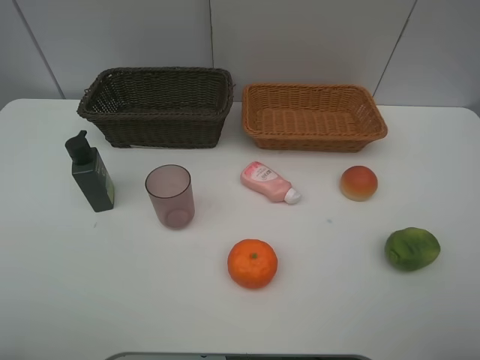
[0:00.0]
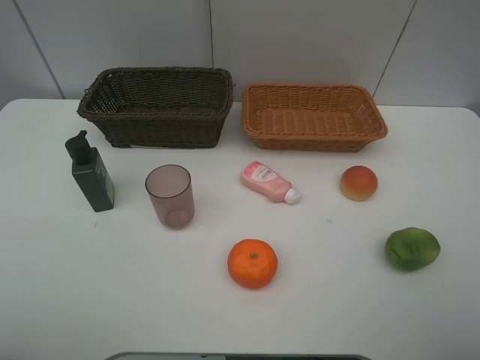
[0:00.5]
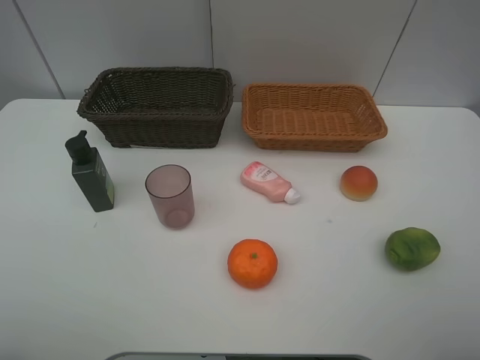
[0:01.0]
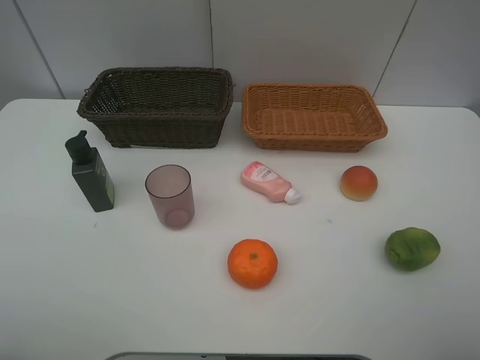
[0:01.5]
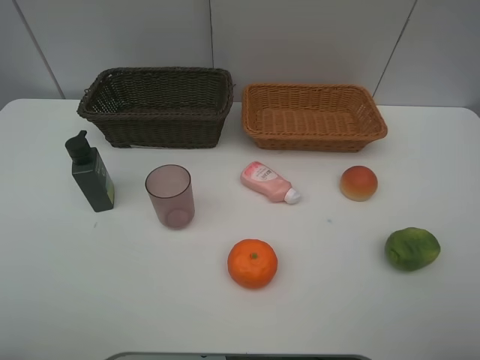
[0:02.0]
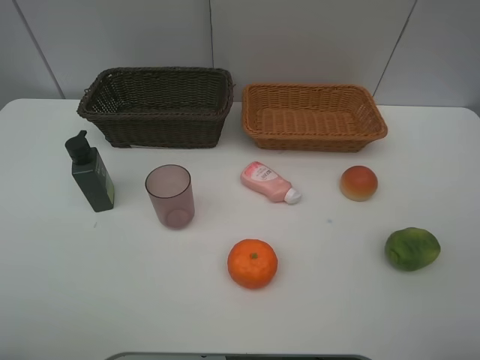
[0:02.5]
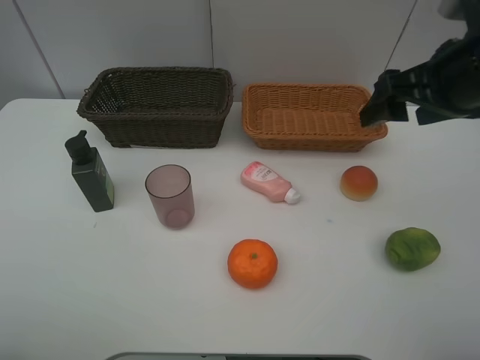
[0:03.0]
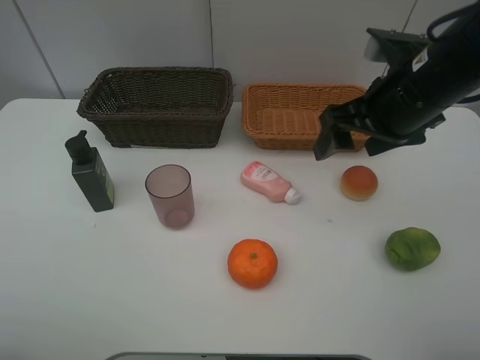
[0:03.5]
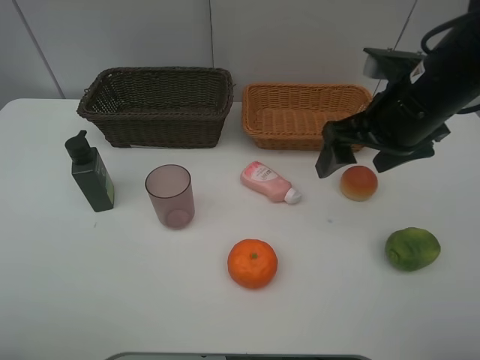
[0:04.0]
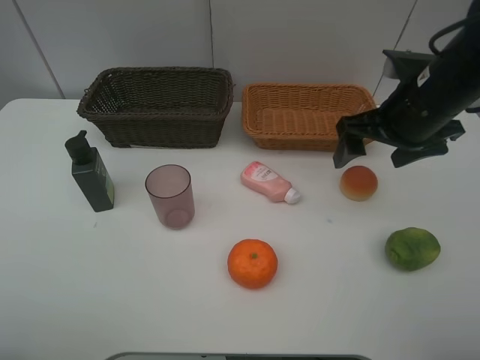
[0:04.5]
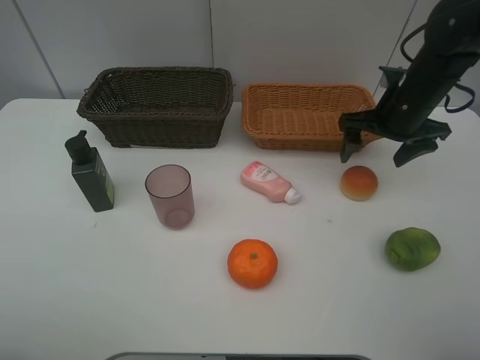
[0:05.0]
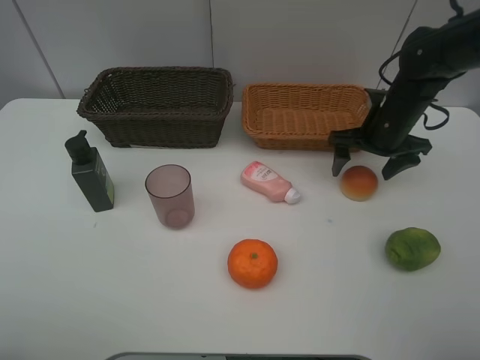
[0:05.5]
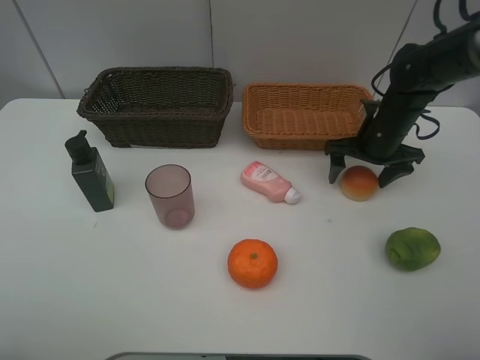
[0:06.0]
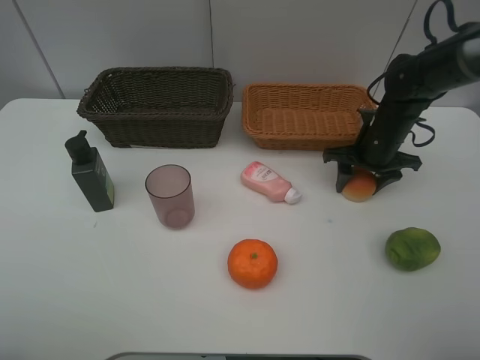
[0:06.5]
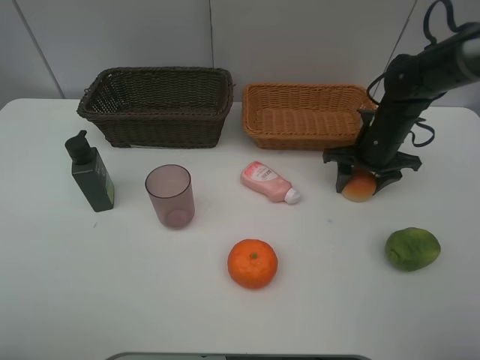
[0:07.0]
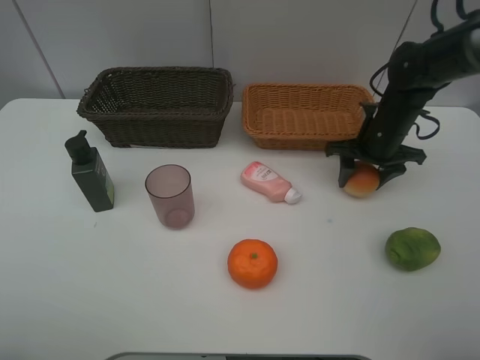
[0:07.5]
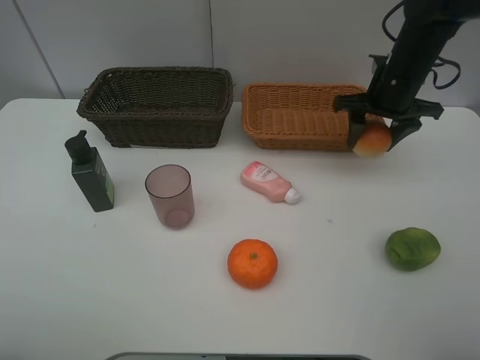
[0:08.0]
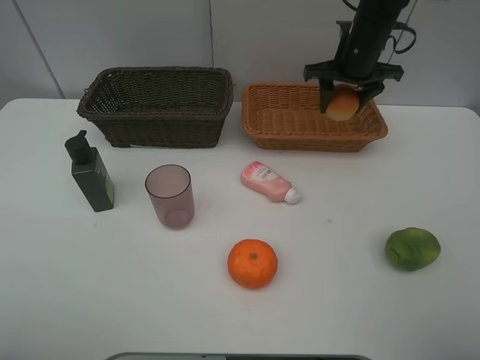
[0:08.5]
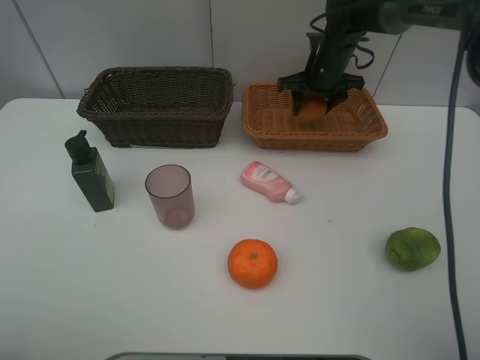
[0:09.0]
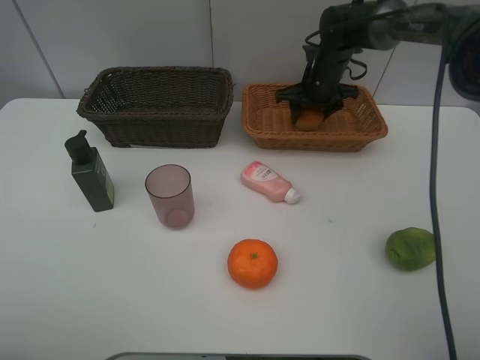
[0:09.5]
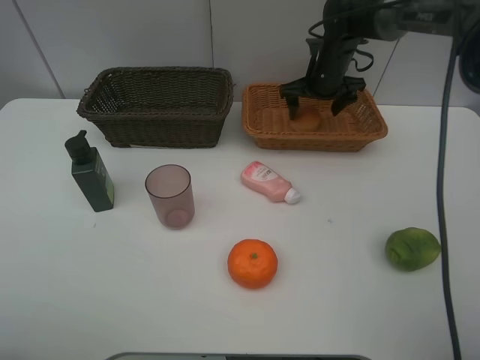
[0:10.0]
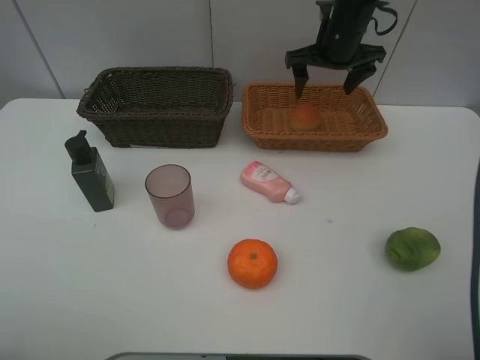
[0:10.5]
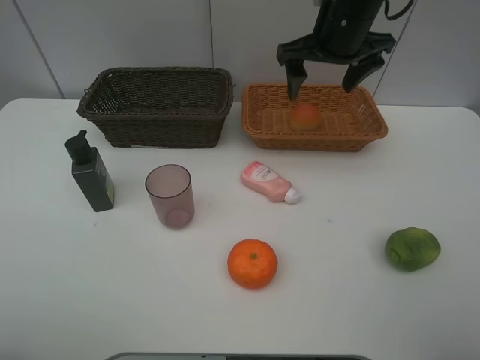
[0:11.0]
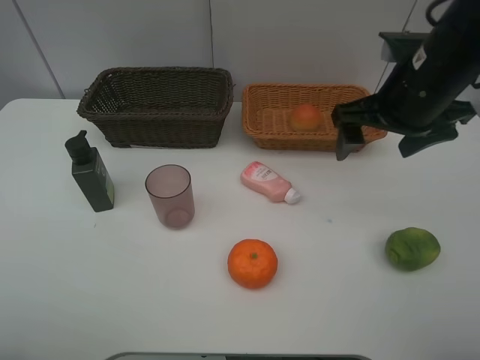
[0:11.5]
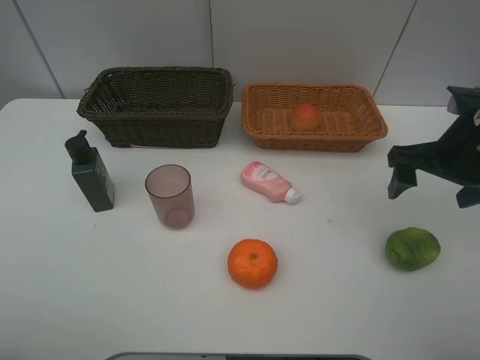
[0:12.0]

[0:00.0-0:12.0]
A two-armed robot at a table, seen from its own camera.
Task of the whole recording: place multiple objects separately in different baskets.
Step, 0.0 to 7.5 s: Pick up the bread with right gripper.
Step, 8.0 to 10.0 s: Place the bread in the light basket with right gripper.
0.0 to 2.0 s: Neither gripper changes place.
2.0 to 4.0 s: The right gripper goes roughly 30 cm forward and to the left.
4.0 to 6.0 s: The right gripper is displaced downward, forward and to the right by roughly 15 cm.
6.0 to 8.0 s: The right gripper is displaced upward by some 10 cm, and closes its fingers.
8.0 to 10.0 s: The right gripper travels forward and to the left by some 10 cm, and opens its fingers.
10.0 to 12.0 s: The right gripper travels backward and to the right by some 30 cm.

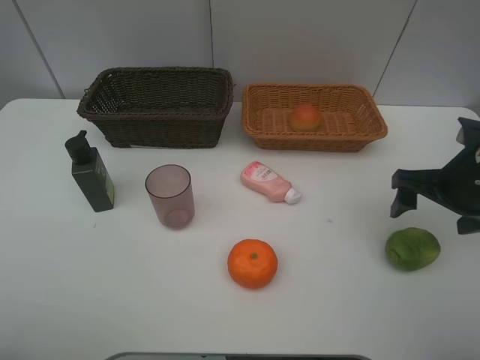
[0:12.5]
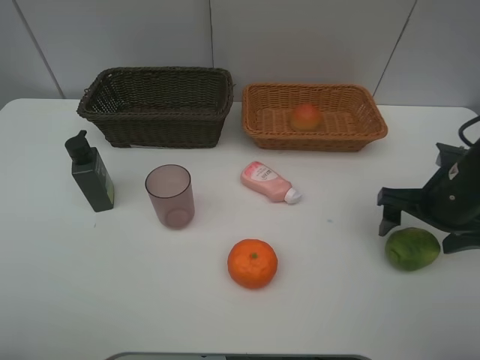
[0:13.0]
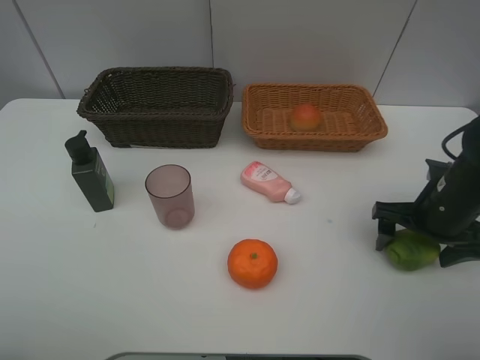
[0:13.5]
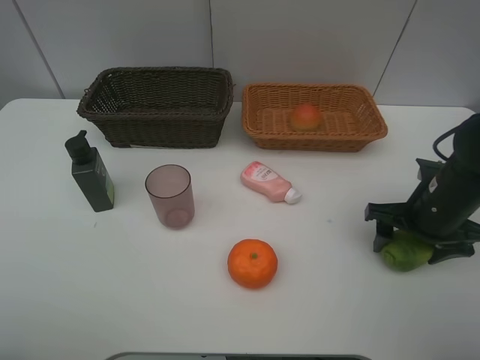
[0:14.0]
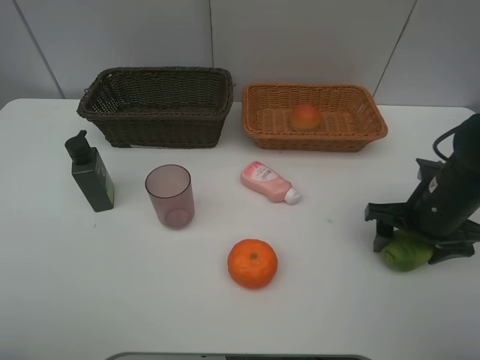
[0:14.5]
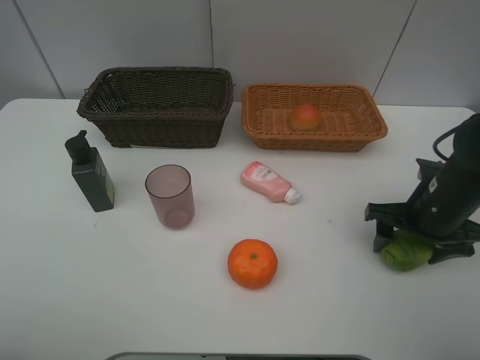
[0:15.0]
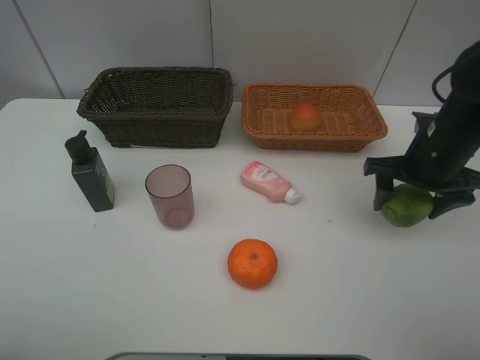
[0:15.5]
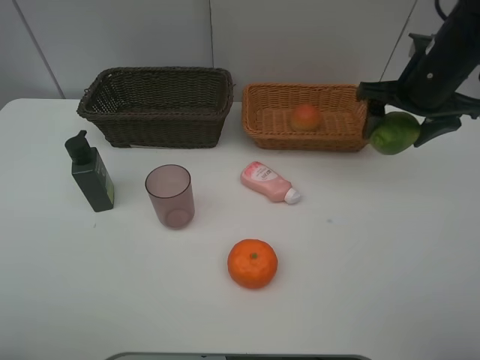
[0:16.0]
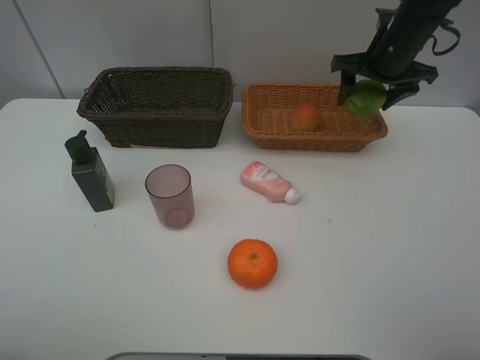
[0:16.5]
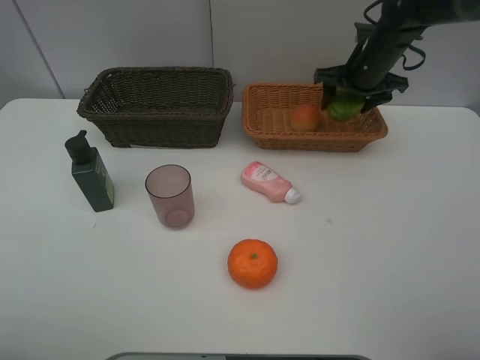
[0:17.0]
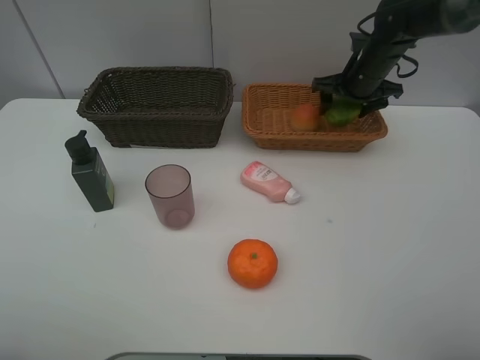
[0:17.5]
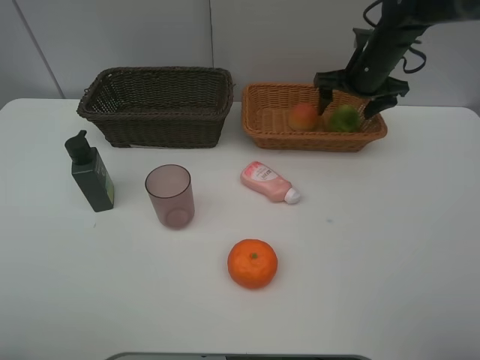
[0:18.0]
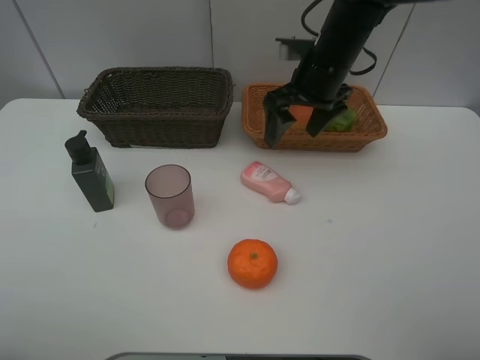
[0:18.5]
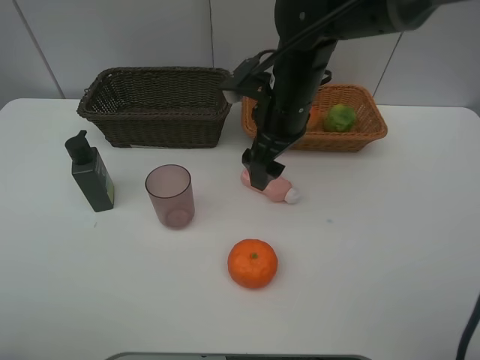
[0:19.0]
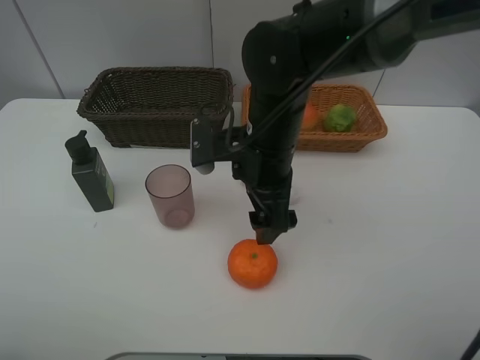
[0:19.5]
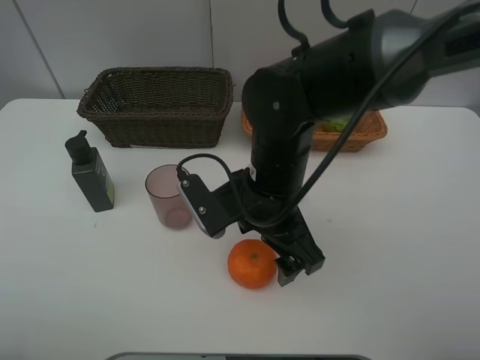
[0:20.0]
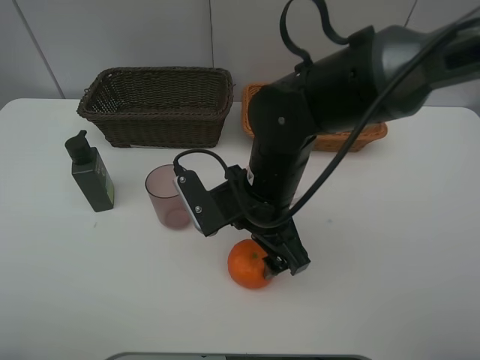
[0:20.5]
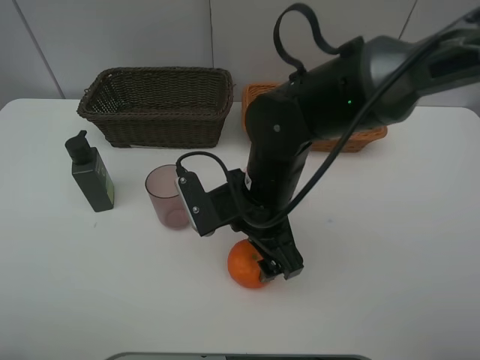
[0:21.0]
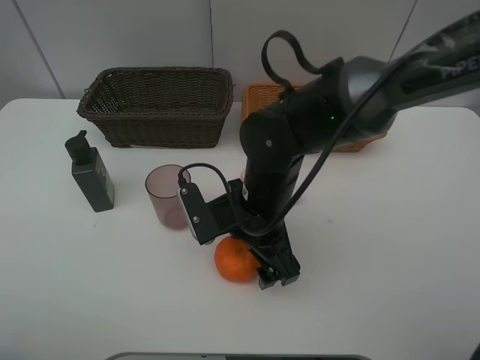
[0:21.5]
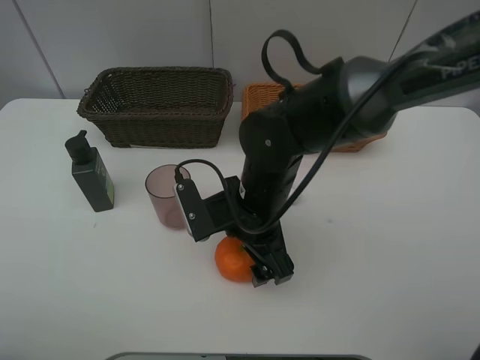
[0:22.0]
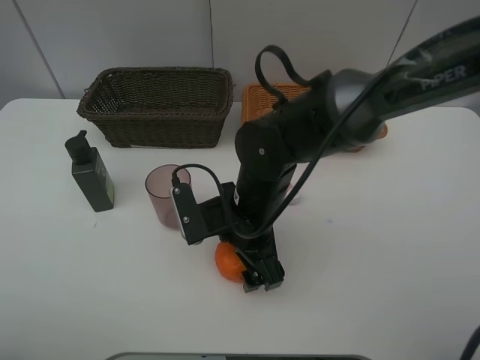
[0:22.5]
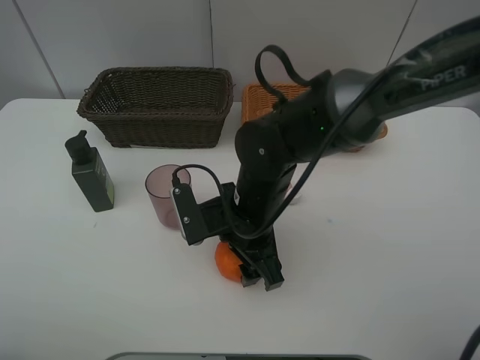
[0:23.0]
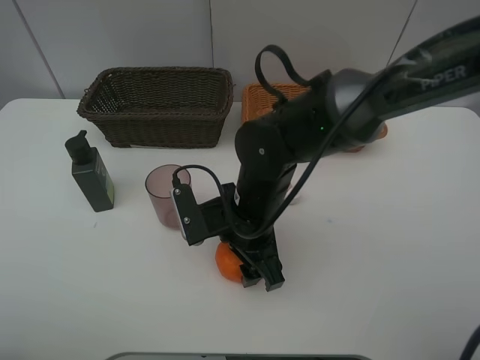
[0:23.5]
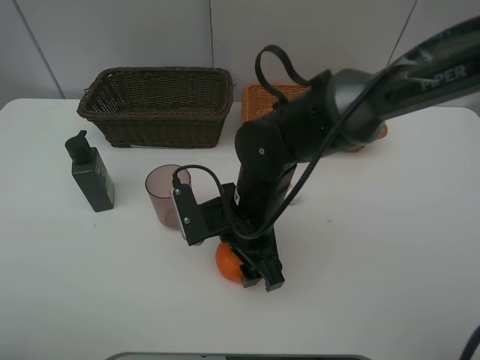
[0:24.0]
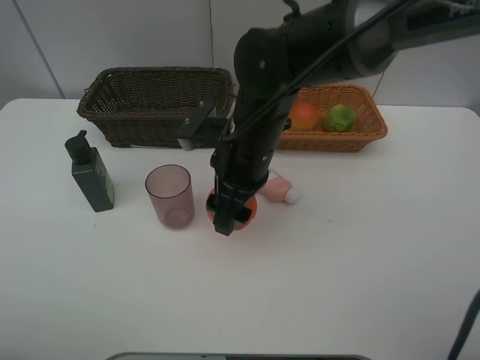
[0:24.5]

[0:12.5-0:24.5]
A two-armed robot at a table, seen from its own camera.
Task of the whole recording: place multiple objects separately in different baskets.
Step, 12.5 to 15.5 s: Pick up the lime with right gripper.
Step, 16.0 to 18.0 s: Place the lime in the light basket with right gripper.
Step, 18.5 to 24.5 s: Pick up the orange with right gripper.
12.5 to 14.5 s: The right gripper is displaced downward by some 5 cm, and closes up.
14.5 to 16.5 s: The right gripper moves forward and upward, roughly 25 cm.
16.5 to 18.5 s: The right gripper is displaced to the left and backward by some 15 cm, and opens its fingers.
18.5 to 20.5 s: The right gripper heads backward, to the left and downward, covering roughly 20 cm.
20.5 to 22.5 s: The grippers make only small movements.
22.5 to 24.5 s: The right gripper is displaced upward and forward by some 10 cm, and closes up.

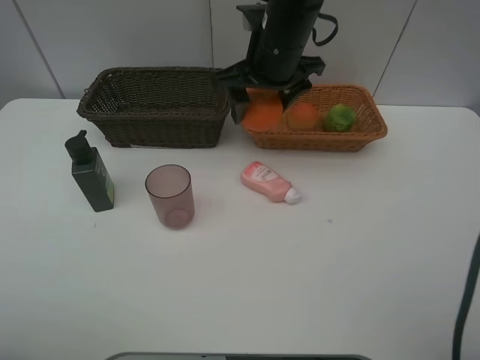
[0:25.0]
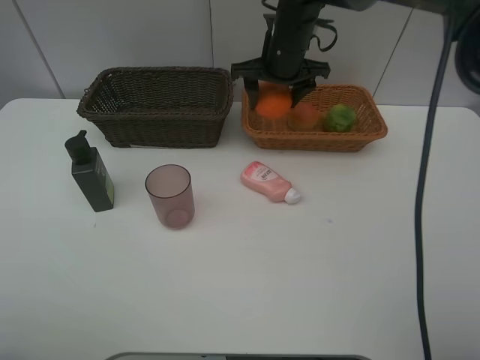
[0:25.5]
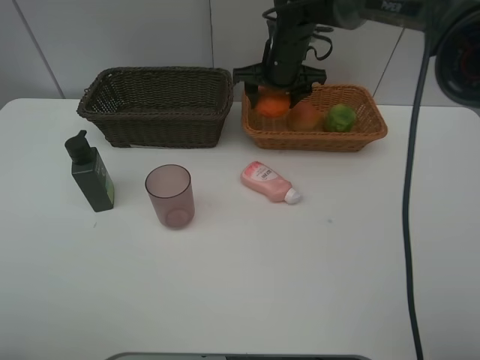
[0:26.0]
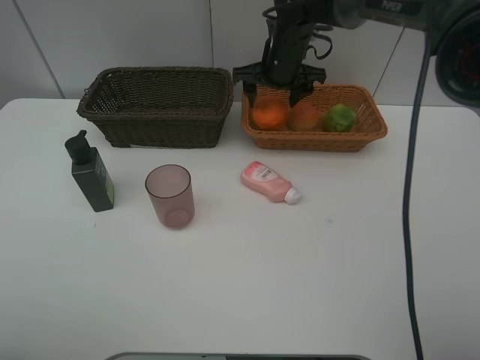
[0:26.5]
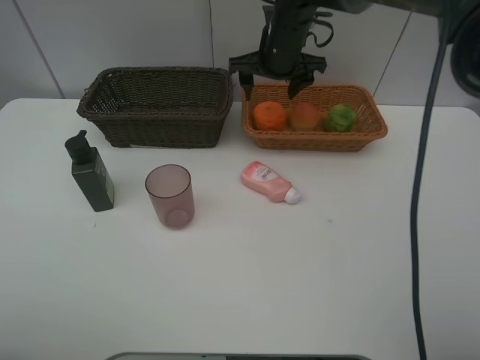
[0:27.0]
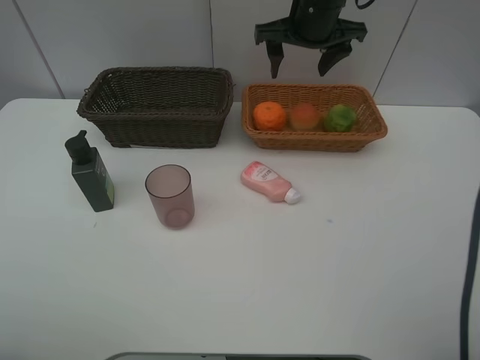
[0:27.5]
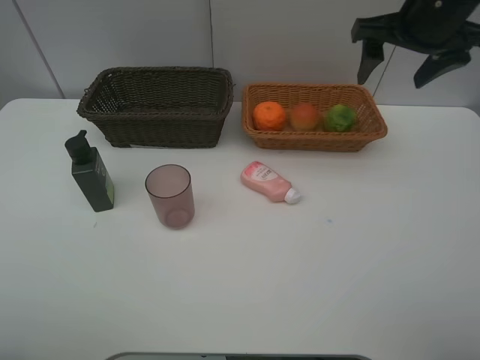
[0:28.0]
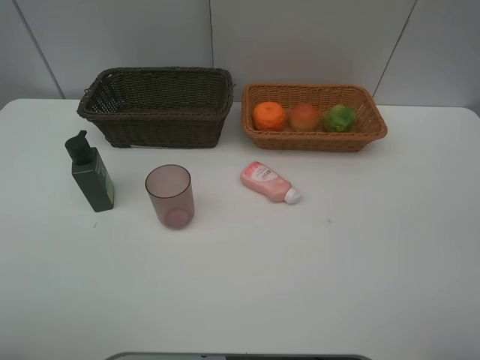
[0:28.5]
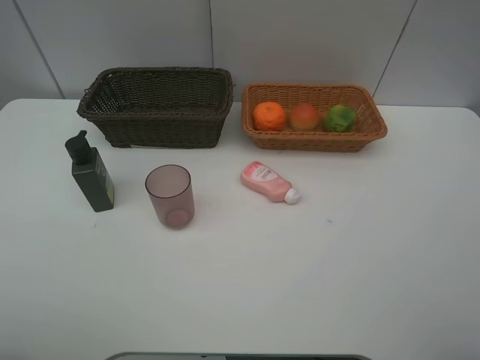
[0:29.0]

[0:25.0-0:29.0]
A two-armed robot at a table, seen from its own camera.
Task of the whole recording: place multiple objects separately in different baskets.
Step, 25.0 to 26.5 s: Place the orange in the light basket with right gripper.
25.0 to 27.0 s: The right gripper travels forward by approximately 10 cm.
27.0 to 29.0 s: The right gripper shifts approximately 40 cm backward and to the right.
